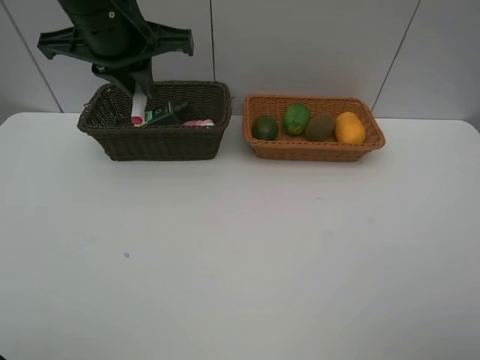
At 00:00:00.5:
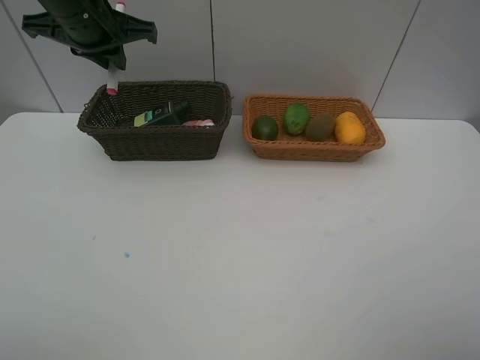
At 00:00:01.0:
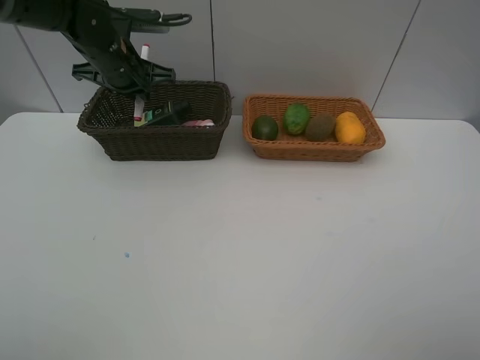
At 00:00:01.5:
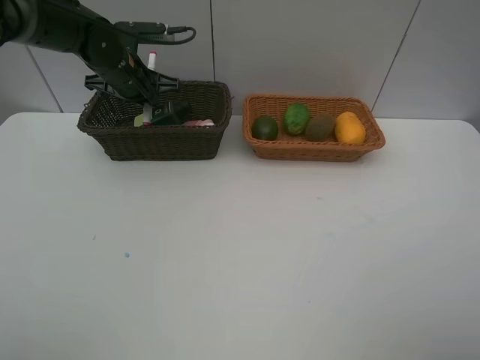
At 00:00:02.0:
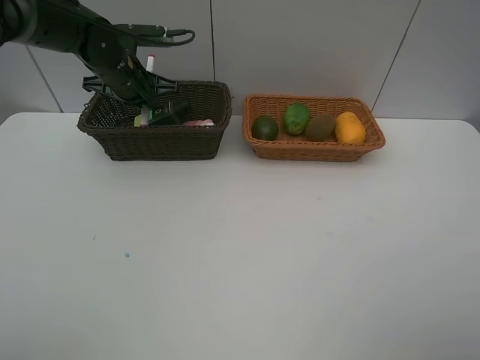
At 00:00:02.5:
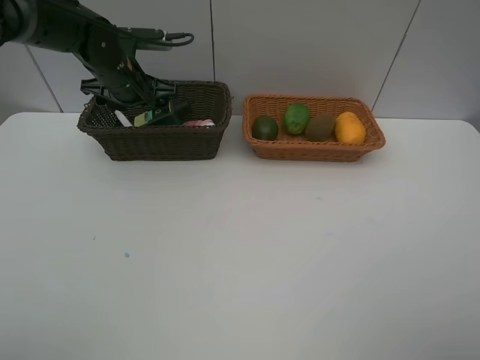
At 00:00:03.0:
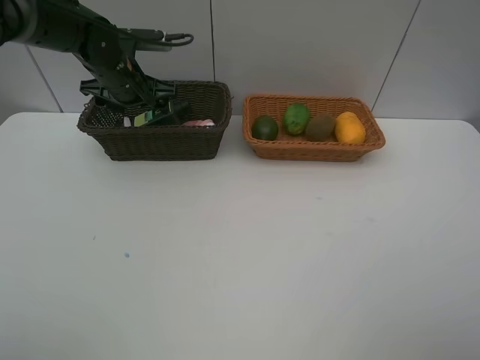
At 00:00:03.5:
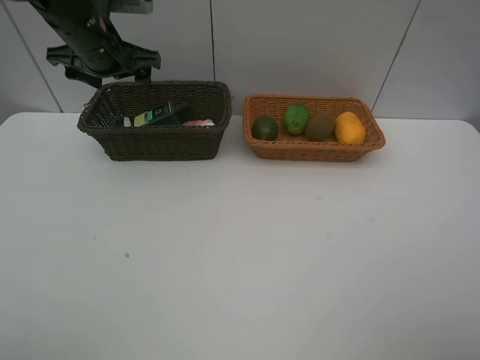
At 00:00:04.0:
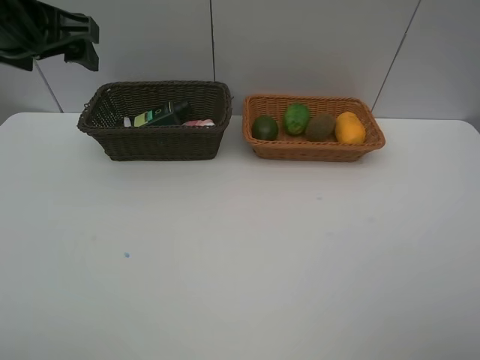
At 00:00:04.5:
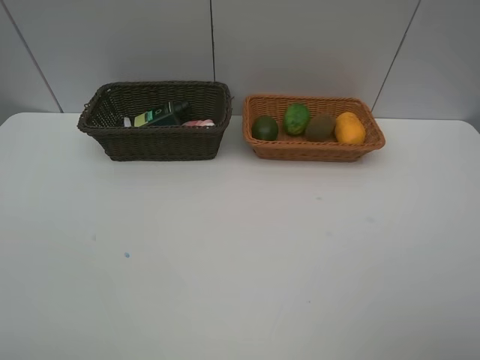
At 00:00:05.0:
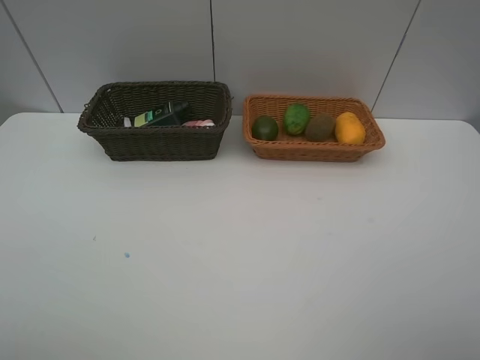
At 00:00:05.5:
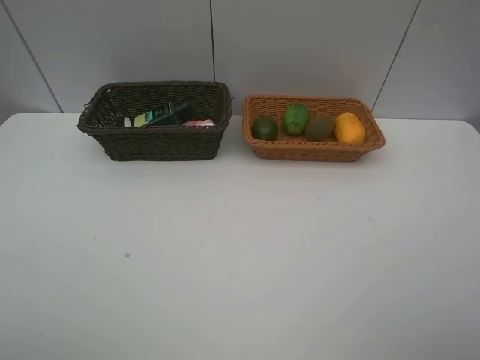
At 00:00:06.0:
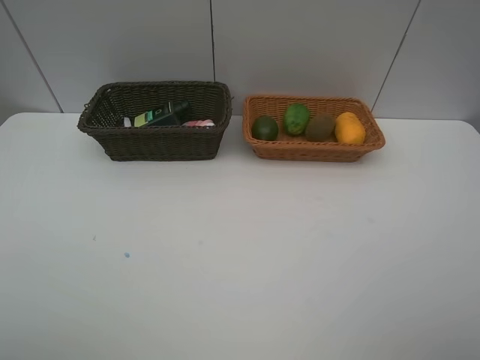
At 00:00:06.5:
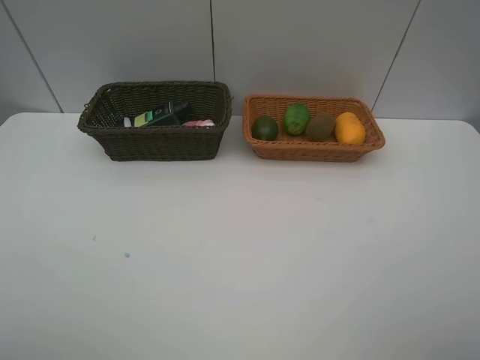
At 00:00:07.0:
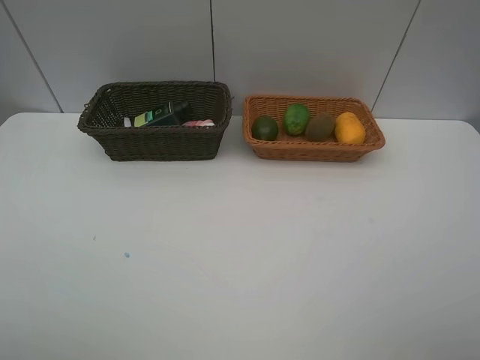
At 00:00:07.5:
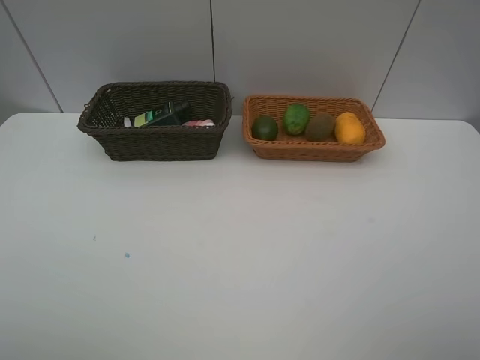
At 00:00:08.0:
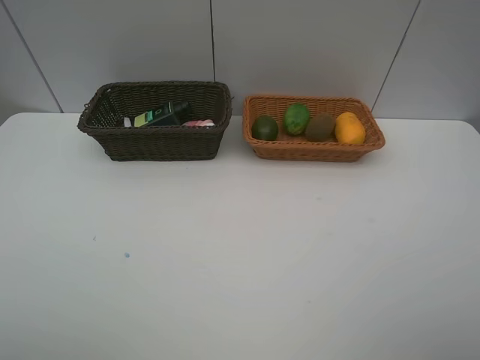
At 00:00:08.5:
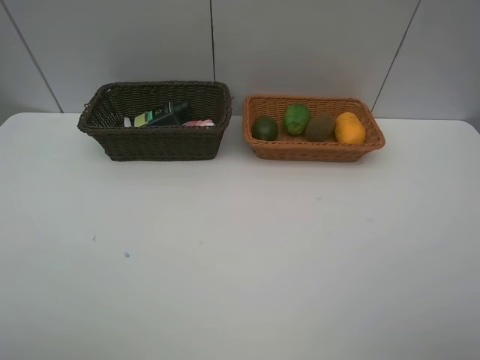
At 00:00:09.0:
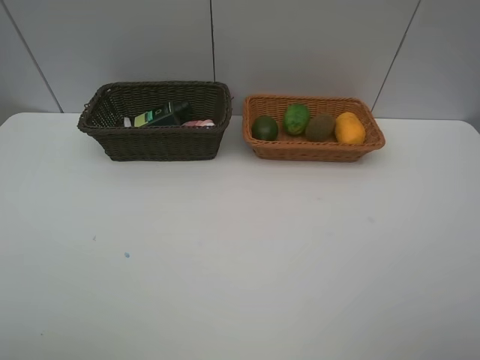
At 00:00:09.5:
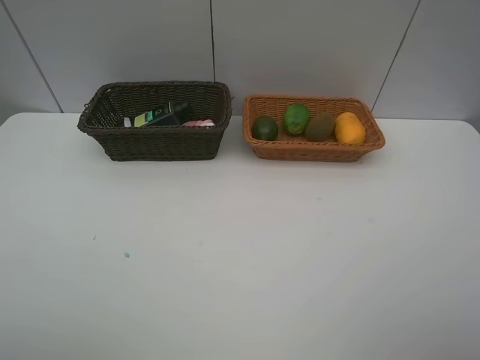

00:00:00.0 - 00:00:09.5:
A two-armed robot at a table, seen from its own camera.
Task of the whole recording: Place multiple objects separately in different baskets.
Step, 00:00:00.0 - 00:00:02.5: Place the pink marker pen in the dark basket with left gripper.
00:00:00.0 - 00:00:02.0: The left gripper moves downward and forward, about 20 cm.
00:00:02.0 - 00:00:04.0: The left gripper is displaced backward and upward by some 20 cm, and opens its fingers.
00:00:04.0 - 00:00:05.5: The left gripper moves backward, about 30 cm.
00:00:07.5 - 00:00:09.5: The two grippers keep their place.
